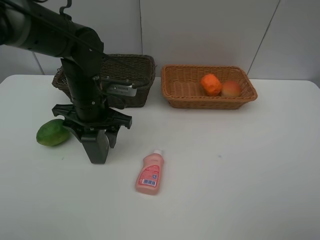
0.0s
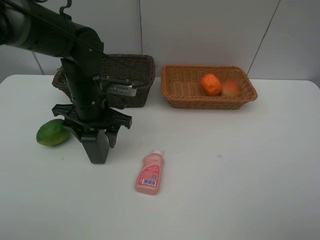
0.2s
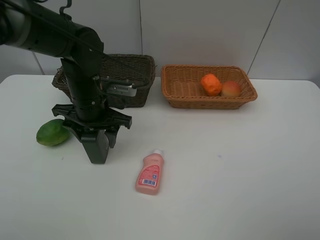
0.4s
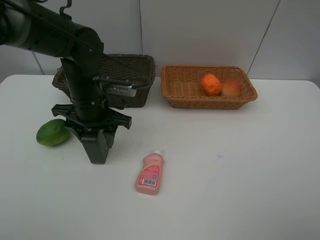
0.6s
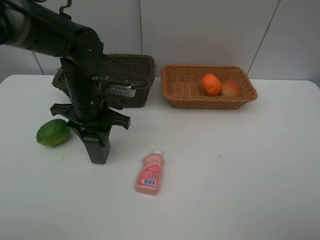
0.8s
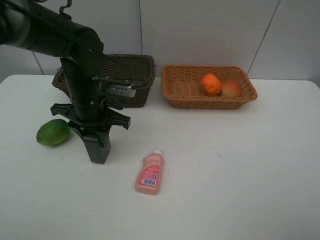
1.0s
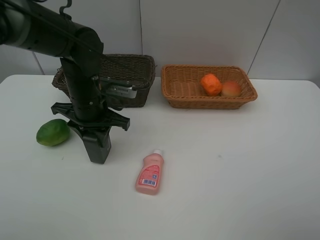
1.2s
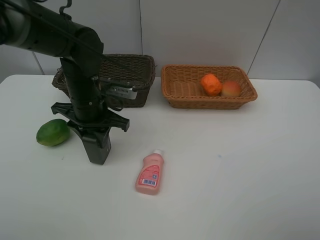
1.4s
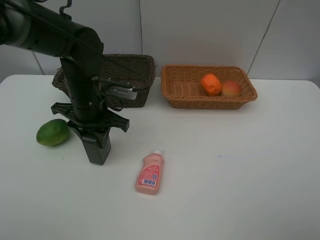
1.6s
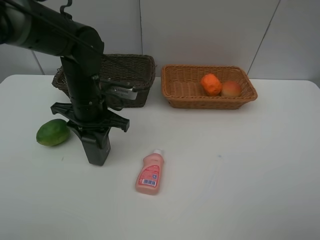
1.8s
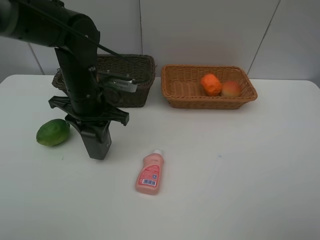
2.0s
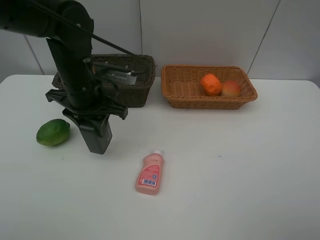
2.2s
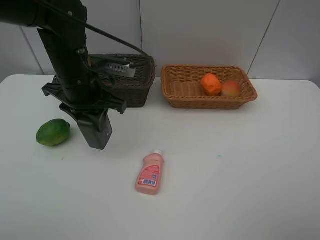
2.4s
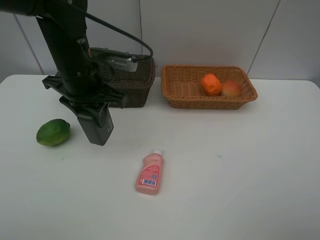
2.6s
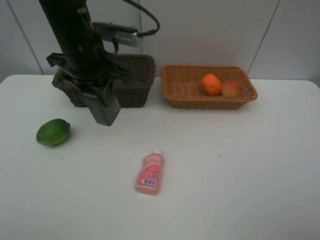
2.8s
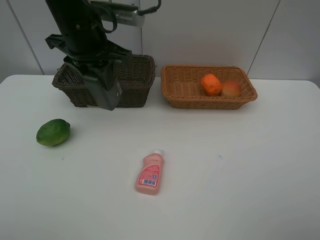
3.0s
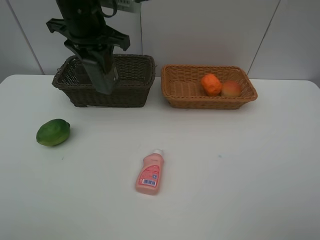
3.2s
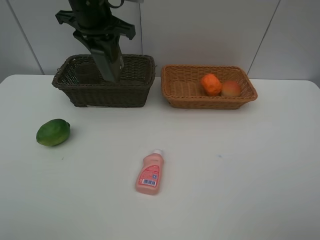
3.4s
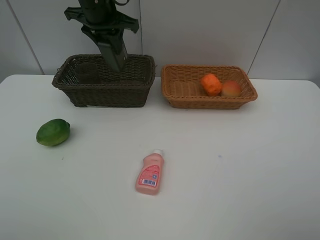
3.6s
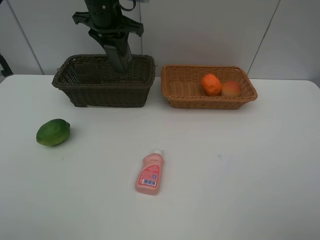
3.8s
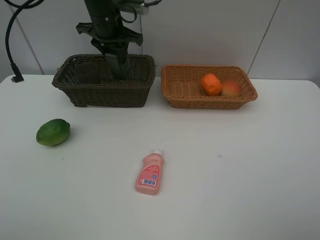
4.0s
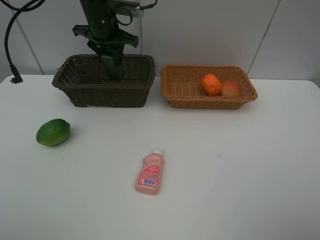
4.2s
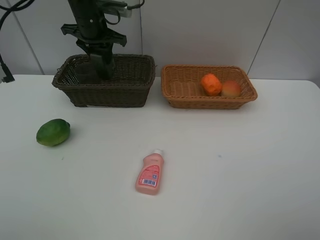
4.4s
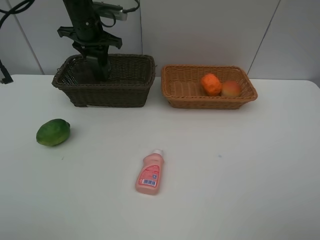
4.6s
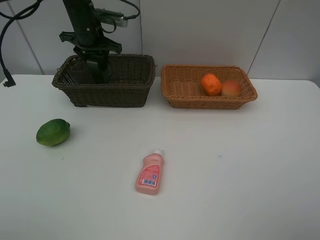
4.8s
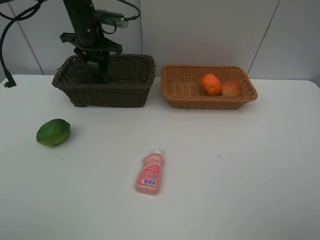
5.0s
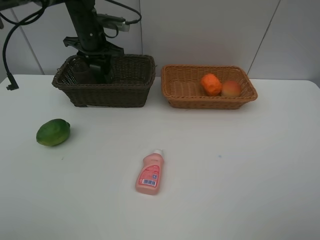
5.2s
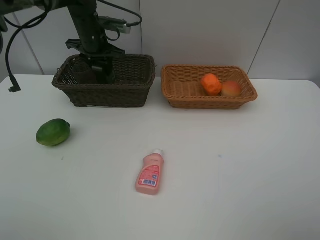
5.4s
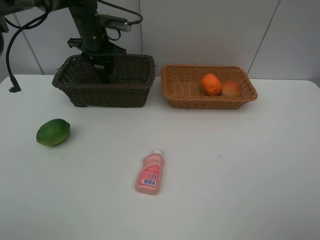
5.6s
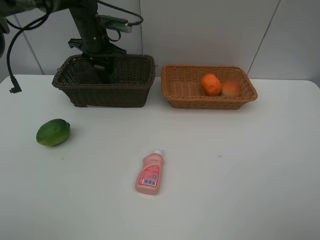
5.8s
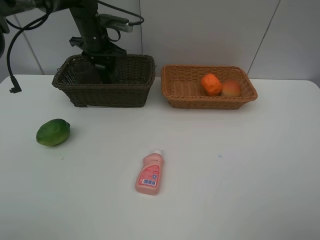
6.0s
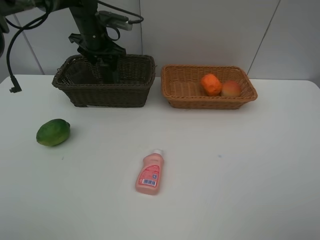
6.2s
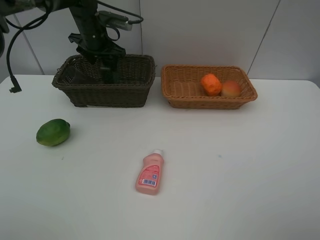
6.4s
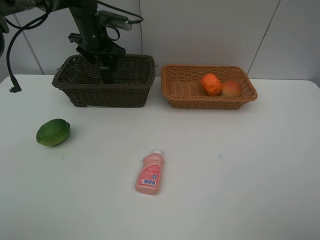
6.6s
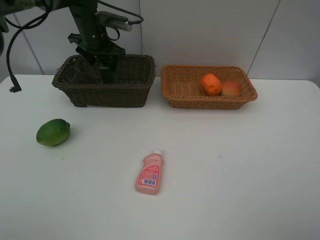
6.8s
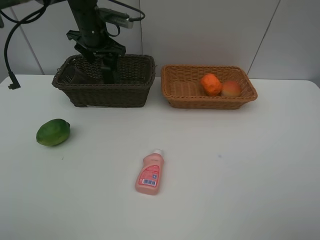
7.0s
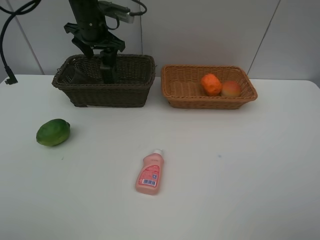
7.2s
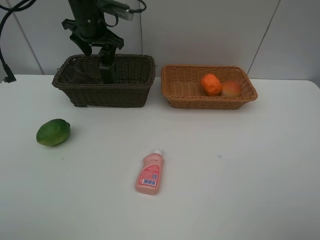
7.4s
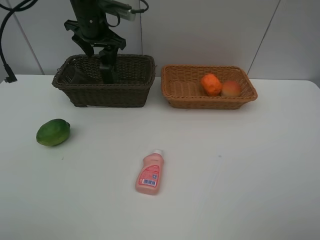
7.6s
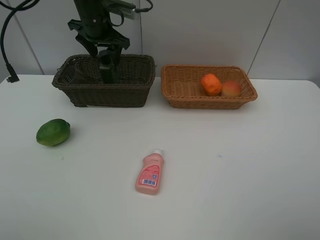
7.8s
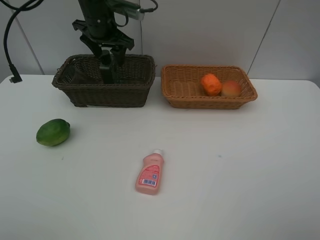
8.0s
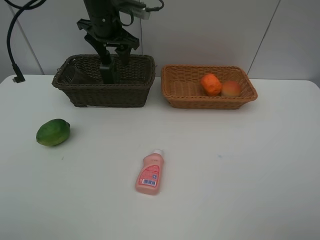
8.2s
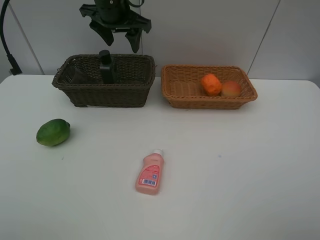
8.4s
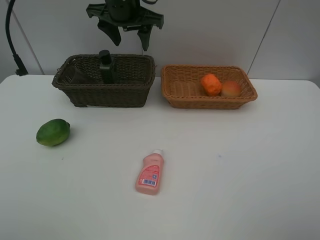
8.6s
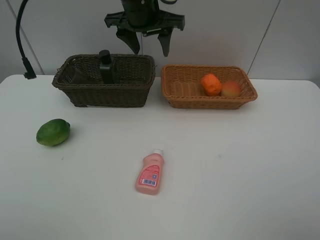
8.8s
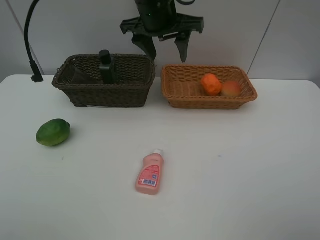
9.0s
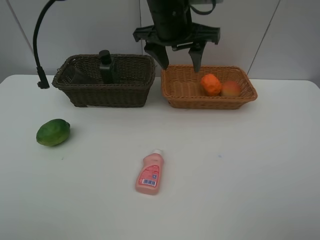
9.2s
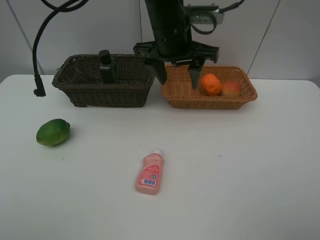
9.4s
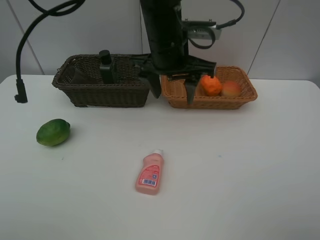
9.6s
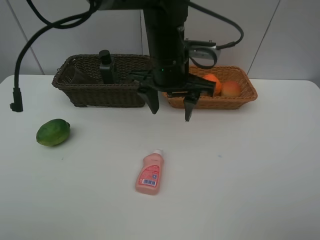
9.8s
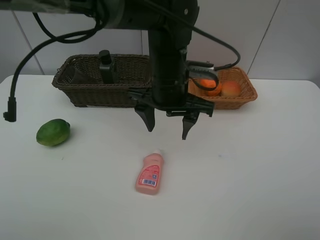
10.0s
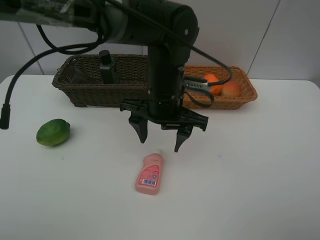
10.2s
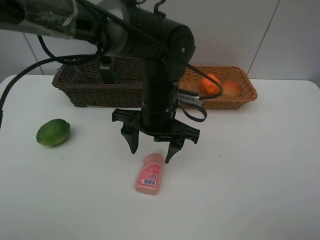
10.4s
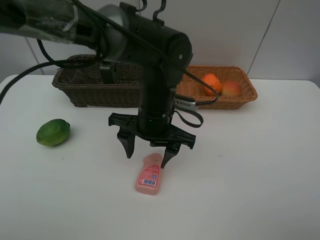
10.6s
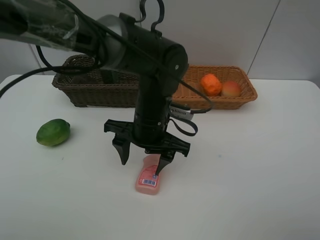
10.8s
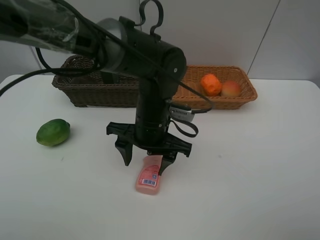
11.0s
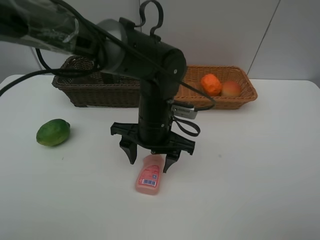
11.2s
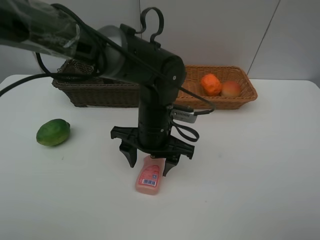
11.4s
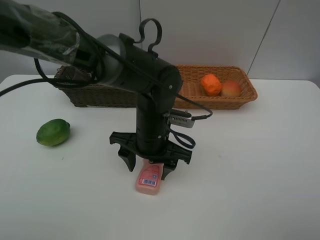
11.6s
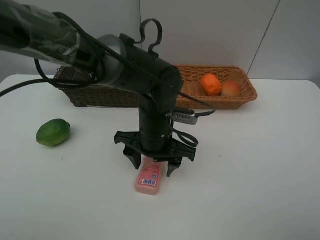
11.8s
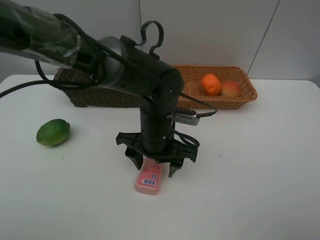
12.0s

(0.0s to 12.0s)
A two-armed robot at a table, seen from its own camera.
Task of the whole recording: place multiple objects separately in different baskets.
0.0s - 1.6s: The left gripper closes up.
1.6s - 3.0s: The left gripper goes approximately 15 cm upward.
3.0s - 4.4s: The left gripper shifts roughly 15 cm forward.
4.4s - 6.0s: The grippers move only a little.
6.0s - 7.6s: The left gripper ends up some 5 cm from where it was.
7.6s - 9.0s: The left gripper is displaced to the right and backward by some 20 cm.
9.0s - 10.4s: The left gripper goes approximately 20 cm downward and backward.
10.4s - 12.0s: The grippers make only small movements.

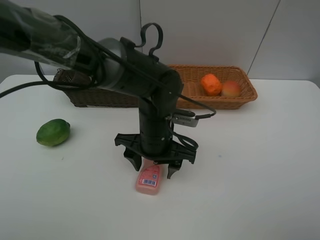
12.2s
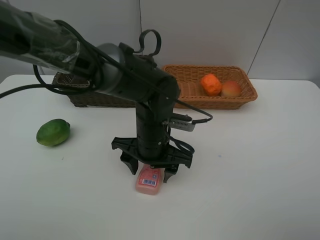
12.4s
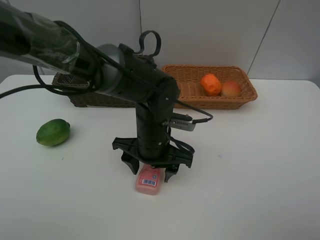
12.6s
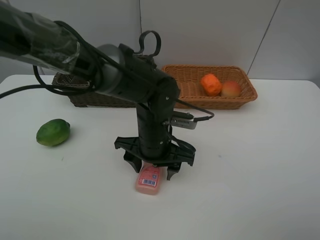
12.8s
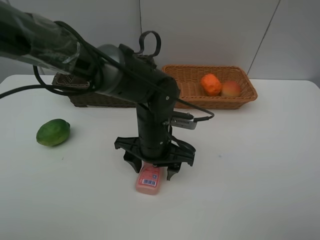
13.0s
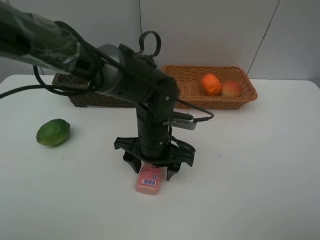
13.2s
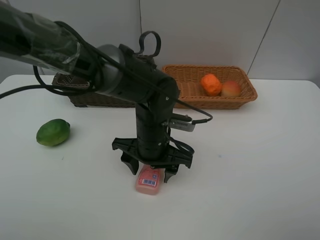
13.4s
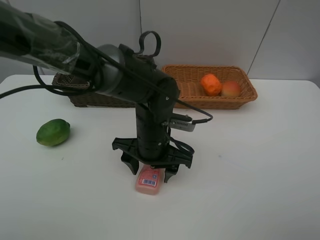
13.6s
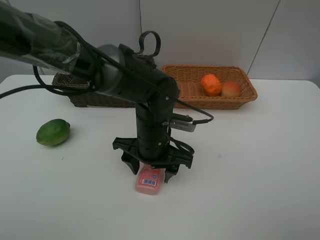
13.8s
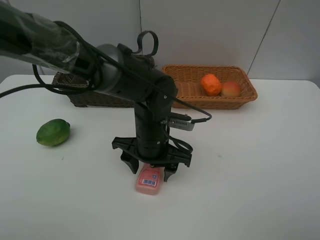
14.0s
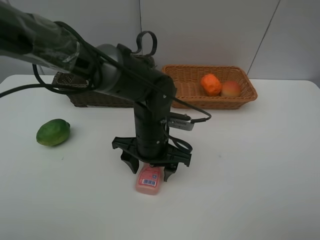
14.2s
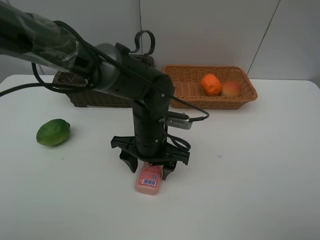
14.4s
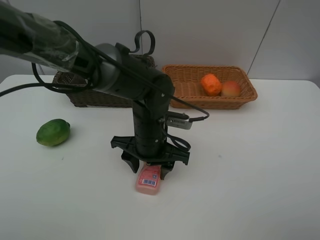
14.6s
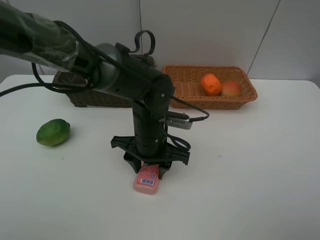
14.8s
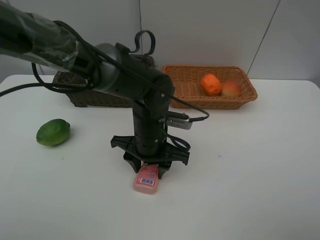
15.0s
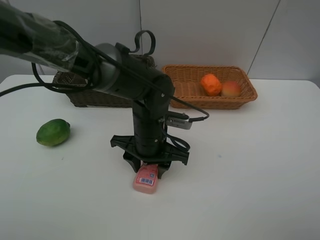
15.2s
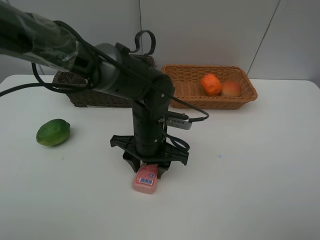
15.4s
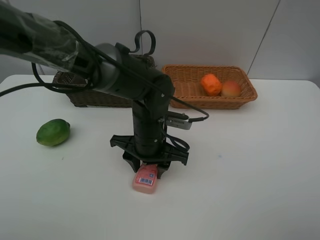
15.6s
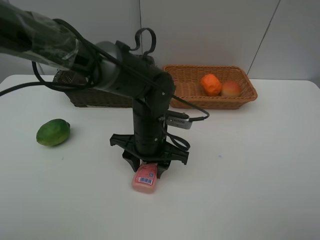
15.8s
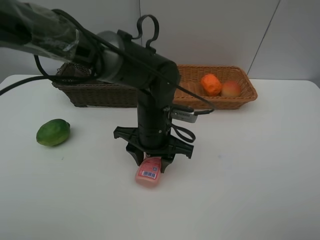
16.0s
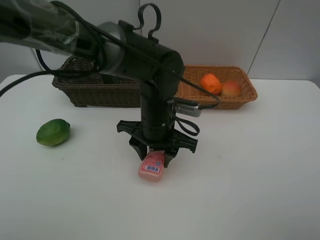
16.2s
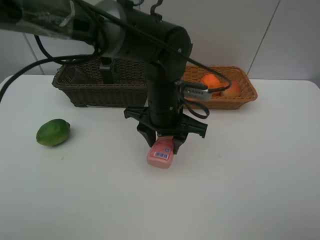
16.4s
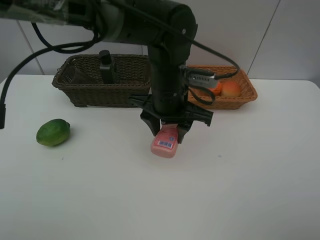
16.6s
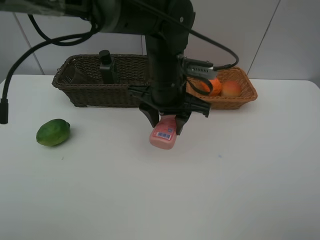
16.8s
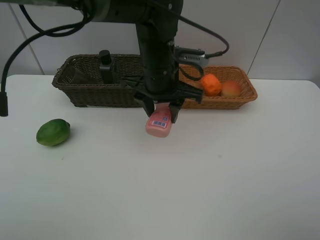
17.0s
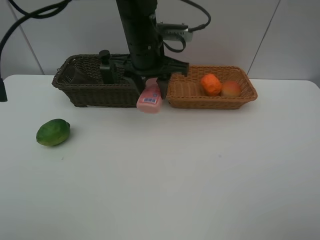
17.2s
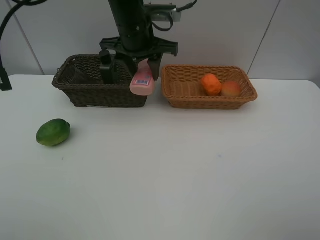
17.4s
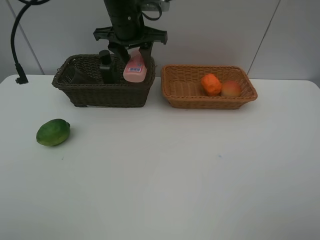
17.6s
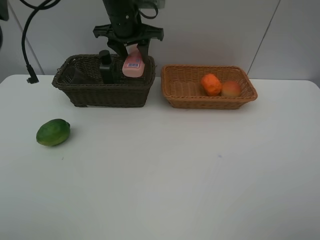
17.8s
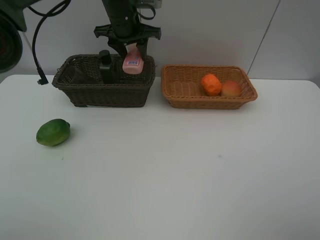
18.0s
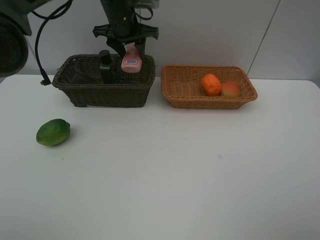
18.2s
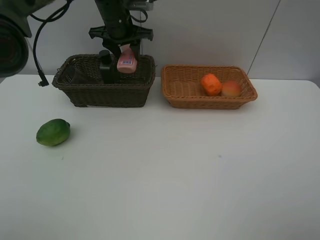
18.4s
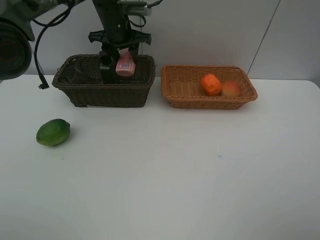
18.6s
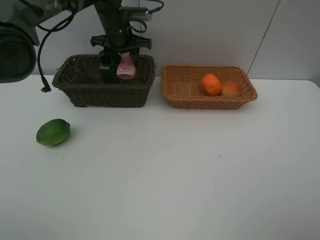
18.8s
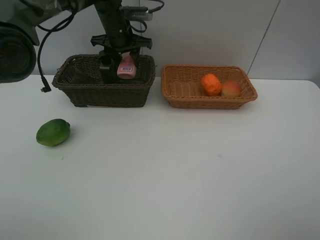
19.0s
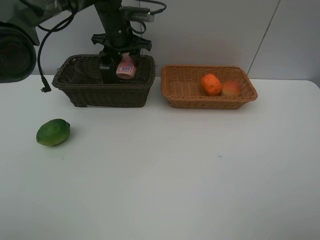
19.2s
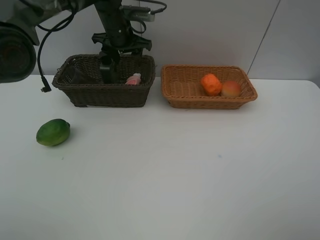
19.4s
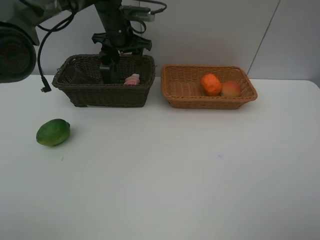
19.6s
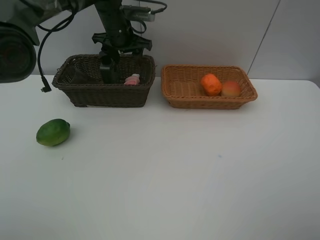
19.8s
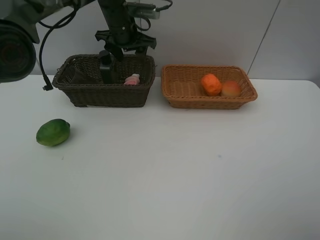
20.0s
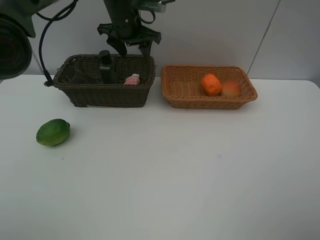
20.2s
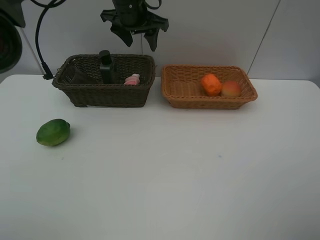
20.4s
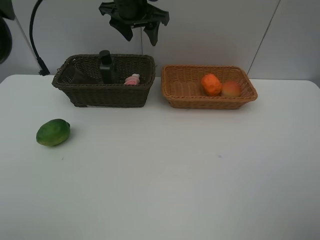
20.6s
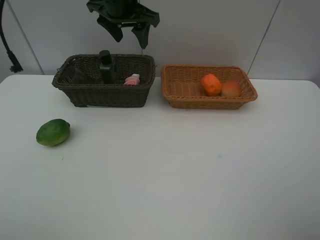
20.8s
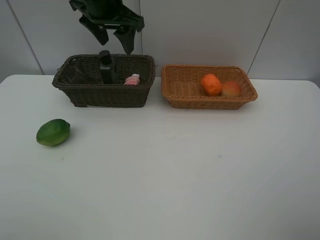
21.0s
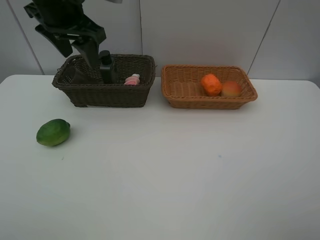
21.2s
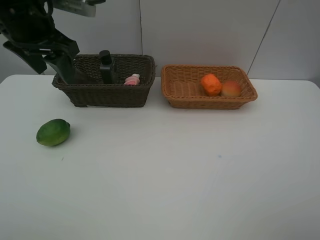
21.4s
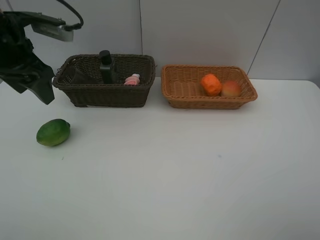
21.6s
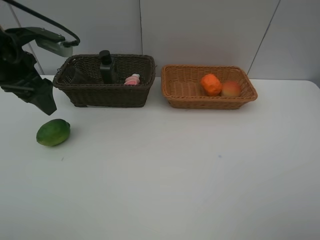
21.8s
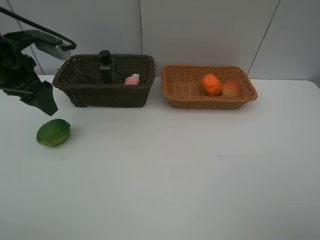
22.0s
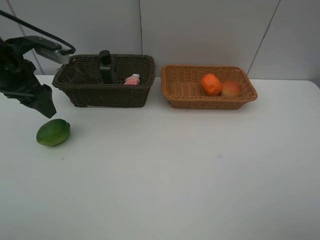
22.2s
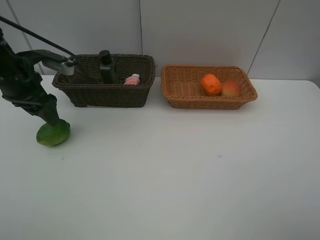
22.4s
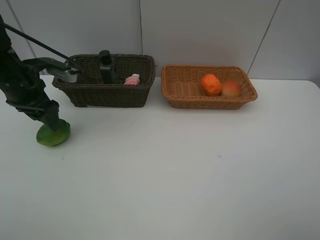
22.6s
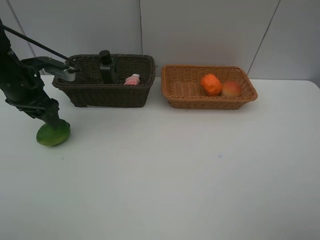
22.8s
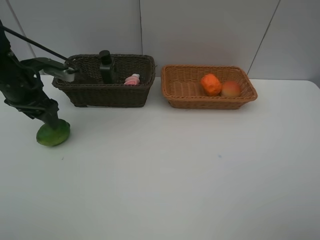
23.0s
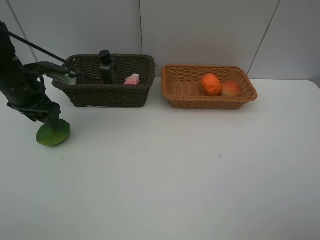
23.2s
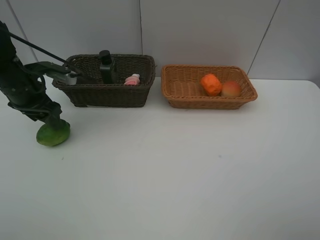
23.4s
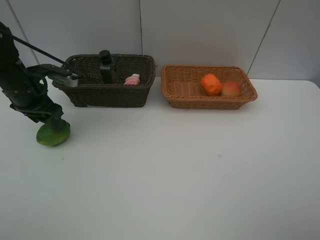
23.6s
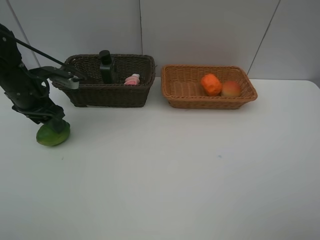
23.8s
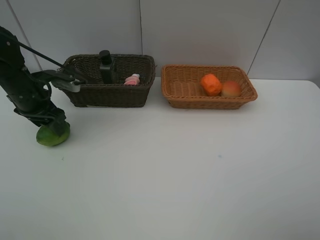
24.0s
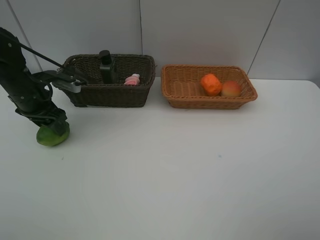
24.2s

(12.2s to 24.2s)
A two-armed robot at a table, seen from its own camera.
Task of the whole recording: place multiple objects separately in different baskets.
12.2s - 13.8s: Neither gripper changes place.
13.8s - 15.2s: The two grippers keep their place.
15.2s - 16.6s: The left gripper shifts approximately 10 cm upward.
16.6s - 18.2s: The left gripper moves forward and to the left, some 25 cm.
18.2s - 19.8s: The grippers move only a little.
19.8s - 21.2s: The left gripper goes some 20 cm backward, upward and to the left.
21.2s - 22.6s: The left gripper is displaced downward and to the left by approximately 15 cm.
22.6s - 24.2s: The grippers move only a little.
